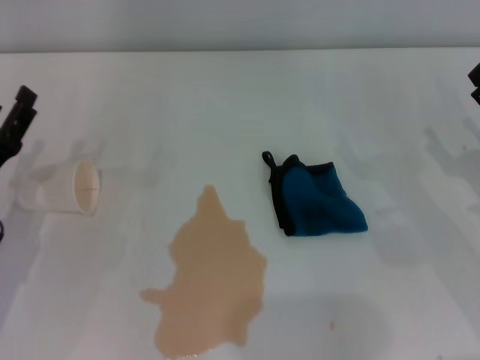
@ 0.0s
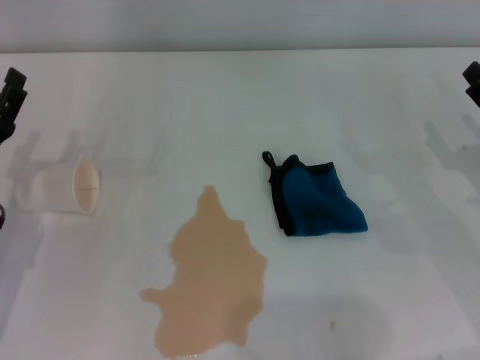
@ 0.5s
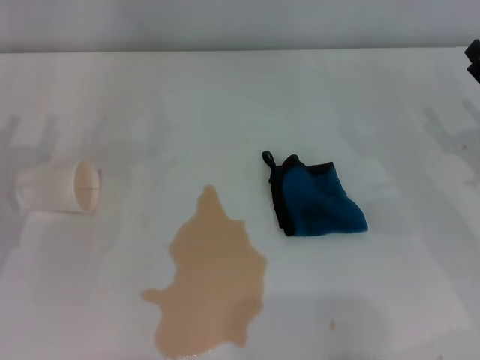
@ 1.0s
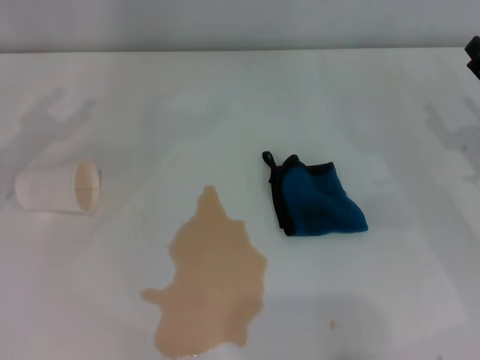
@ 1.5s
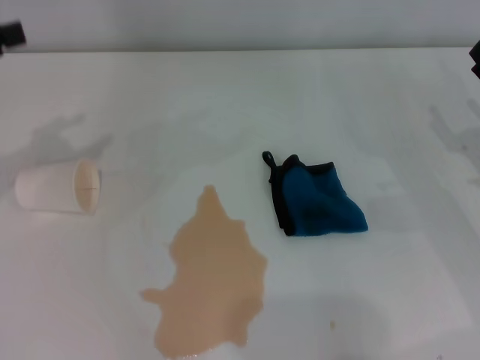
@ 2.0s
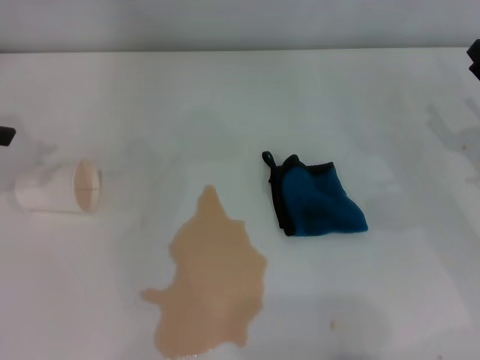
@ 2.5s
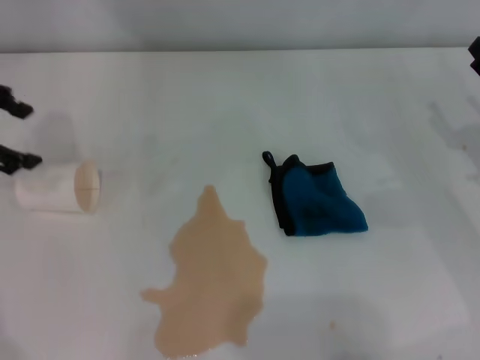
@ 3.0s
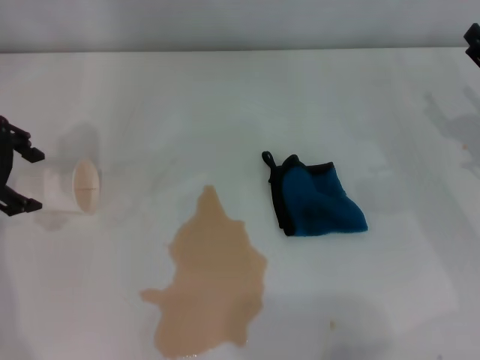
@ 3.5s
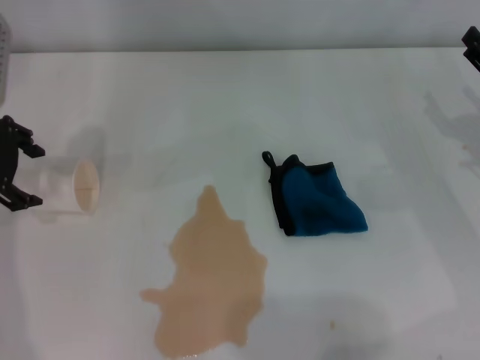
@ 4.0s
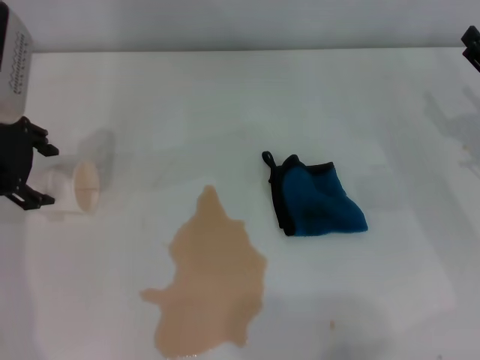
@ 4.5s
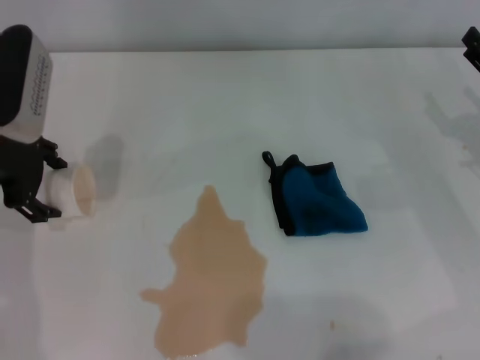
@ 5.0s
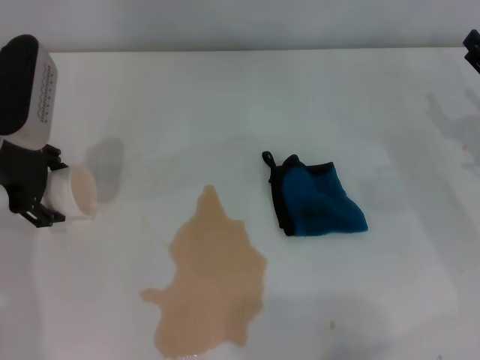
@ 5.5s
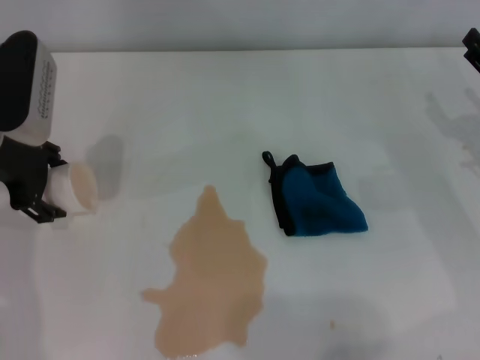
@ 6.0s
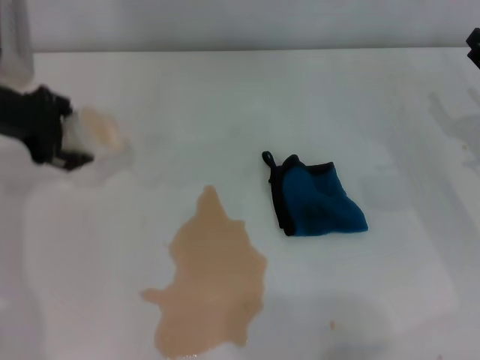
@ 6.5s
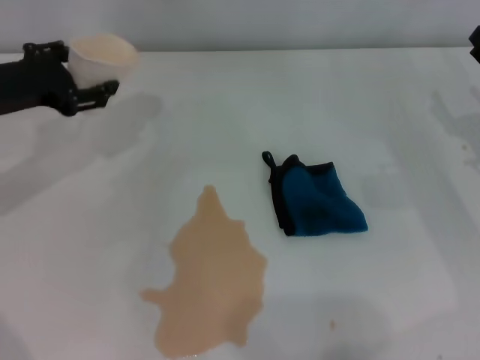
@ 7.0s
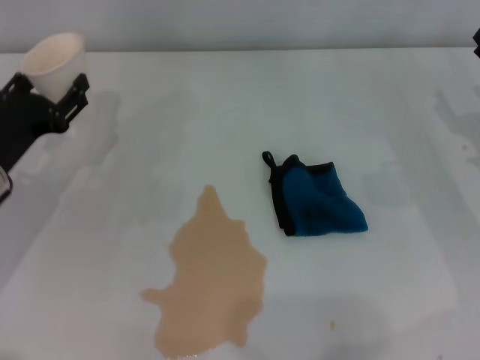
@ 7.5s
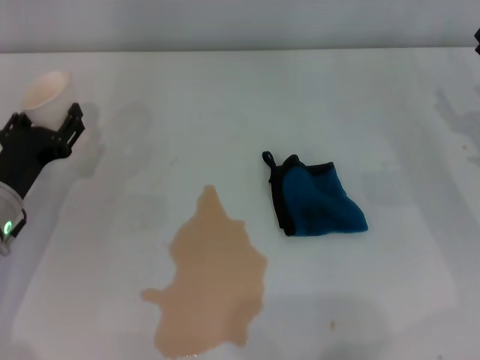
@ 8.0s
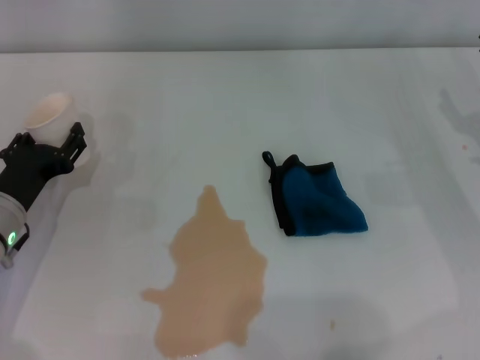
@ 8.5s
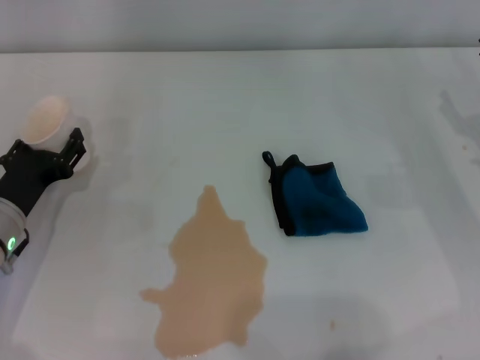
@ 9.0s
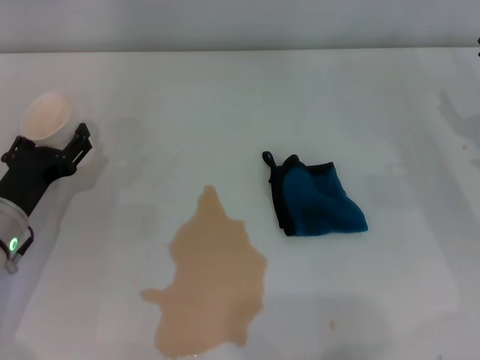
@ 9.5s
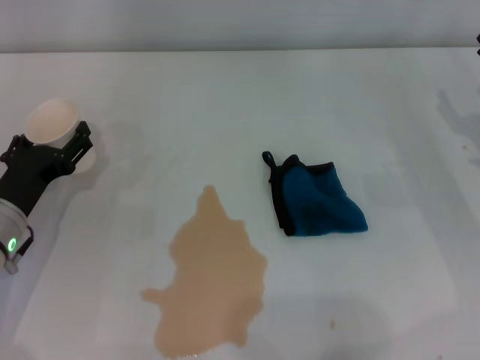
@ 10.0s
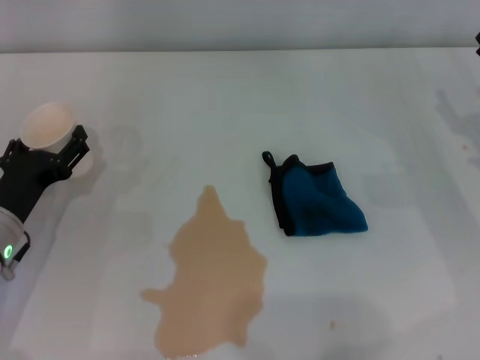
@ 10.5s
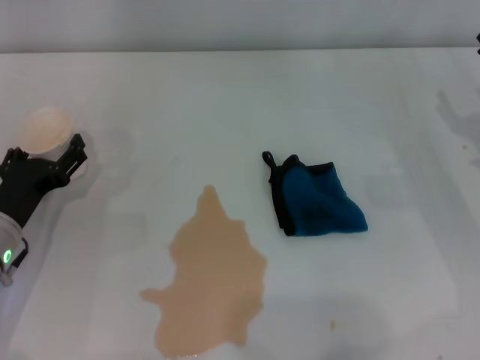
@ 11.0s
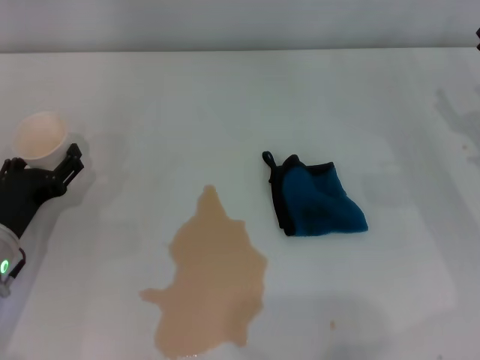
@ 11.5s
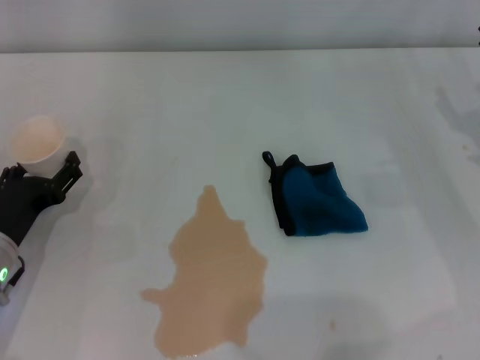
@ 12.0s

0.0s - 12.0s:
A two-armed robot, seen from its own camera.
Step, 0.0s - 6.0s: Grasp the paper cup with the left gripper.
0.0s - 2.0s: The left gripper is displaced upward and to the left by roughly 20 cm.
2.0s - 4.0s: The left gripper is displaced to the right and forward by some 10 cm.
4.0s - 6.0s: The grippers stay close to where they were, moving slightly.
6.0s - 8.0s: The left gripper goes about 15 cm downward and backward, and closes up.
8.0s - 10.0s: The left gripper opens.
10.0s - 12.0s: The grippers stay close to where they were, moving slightly.

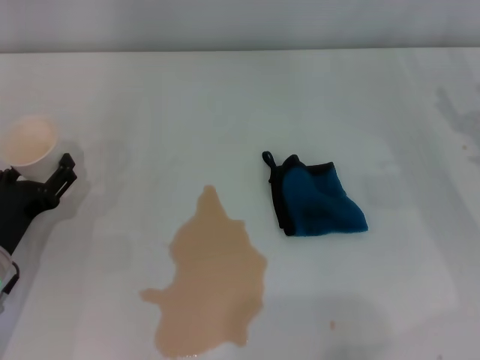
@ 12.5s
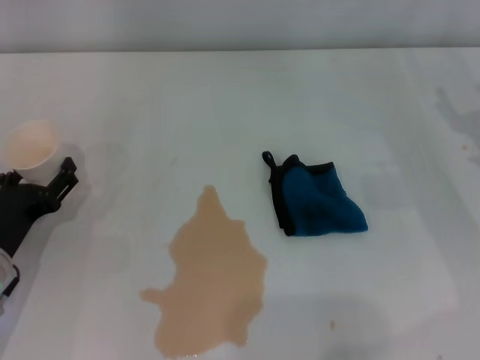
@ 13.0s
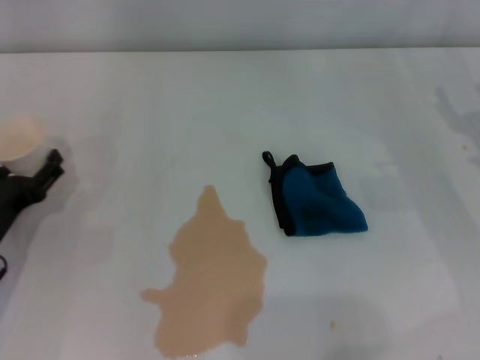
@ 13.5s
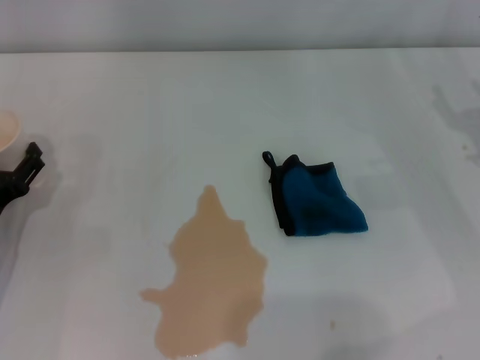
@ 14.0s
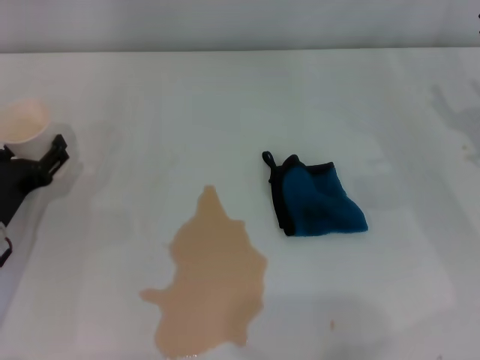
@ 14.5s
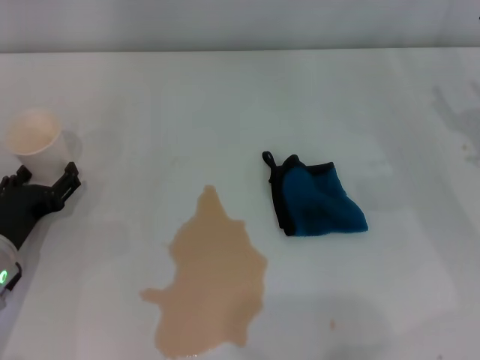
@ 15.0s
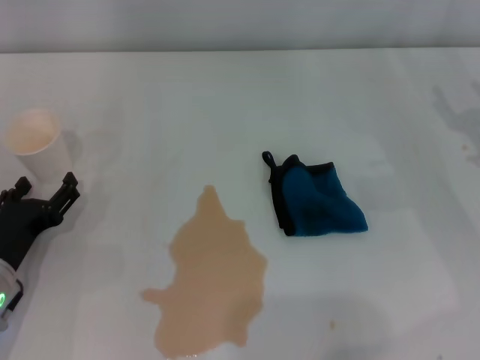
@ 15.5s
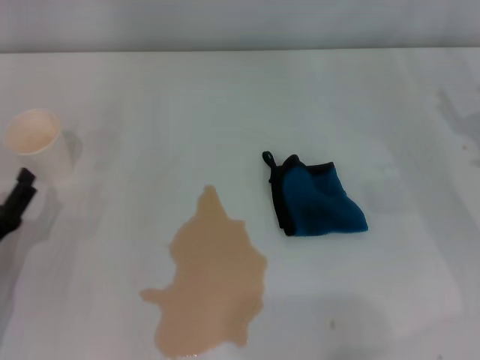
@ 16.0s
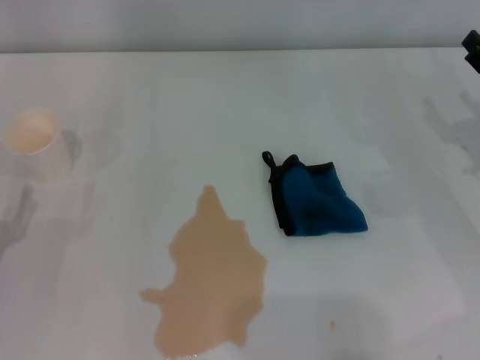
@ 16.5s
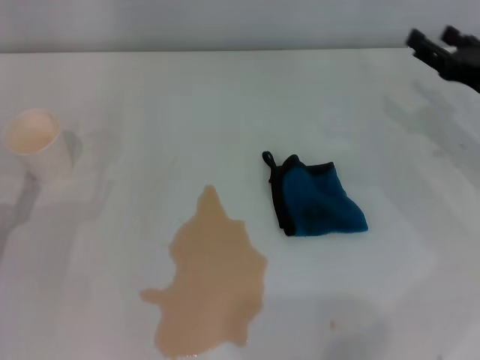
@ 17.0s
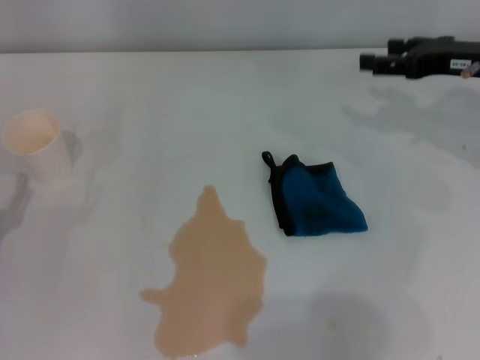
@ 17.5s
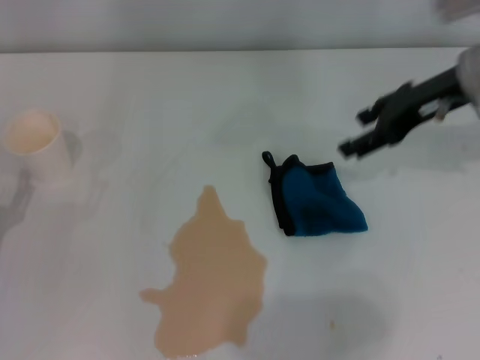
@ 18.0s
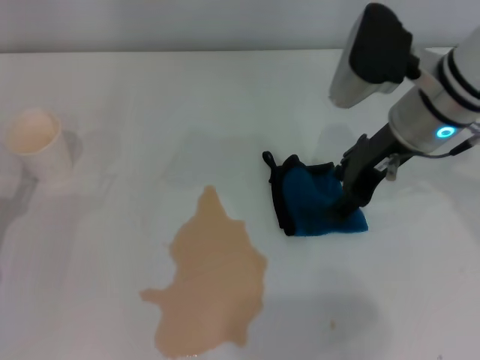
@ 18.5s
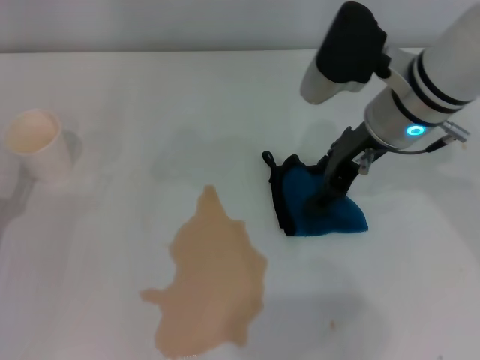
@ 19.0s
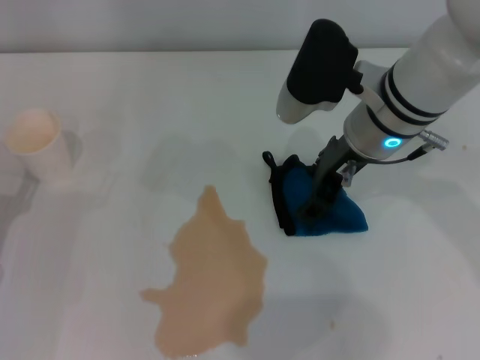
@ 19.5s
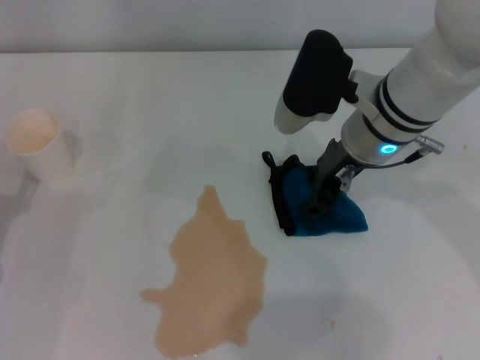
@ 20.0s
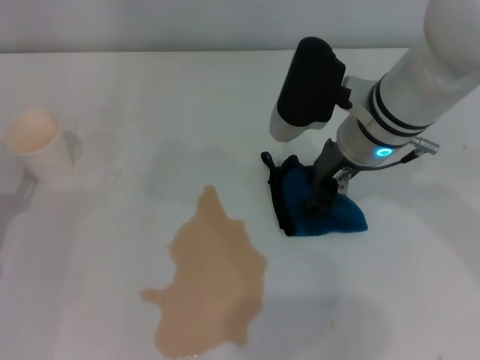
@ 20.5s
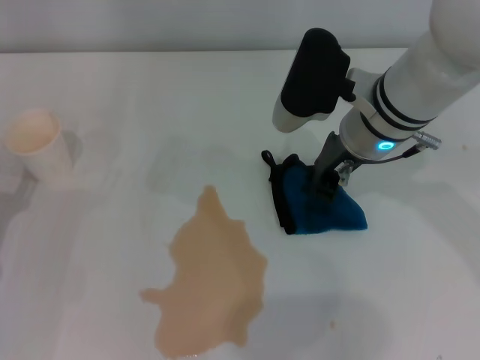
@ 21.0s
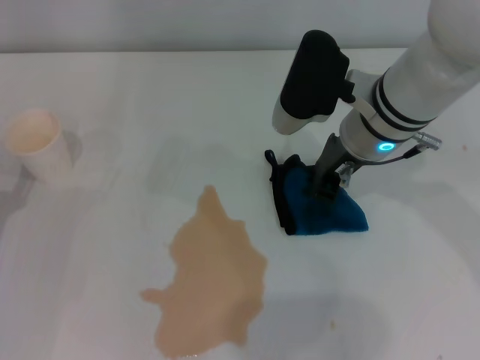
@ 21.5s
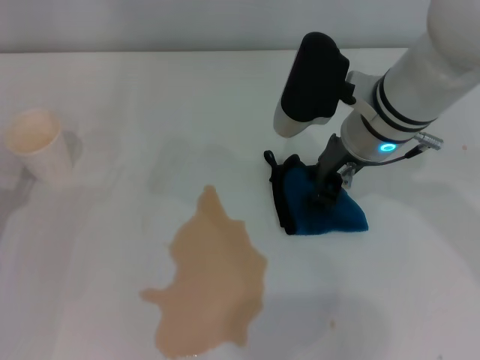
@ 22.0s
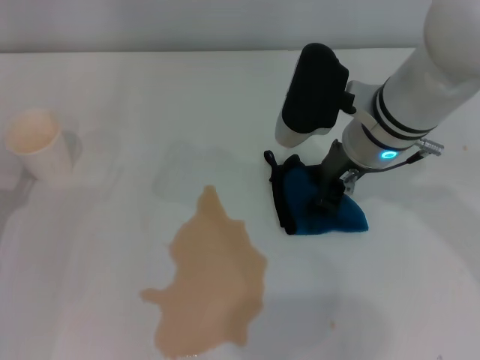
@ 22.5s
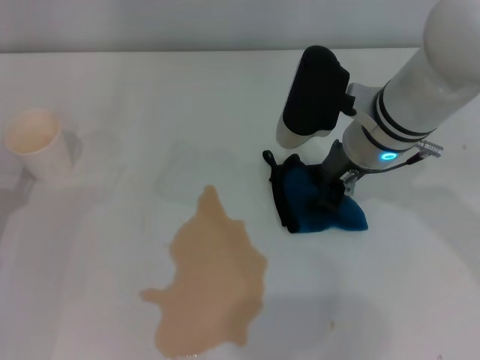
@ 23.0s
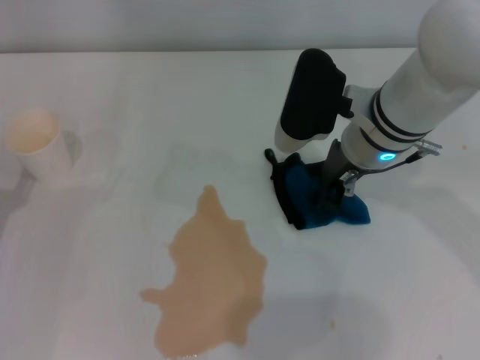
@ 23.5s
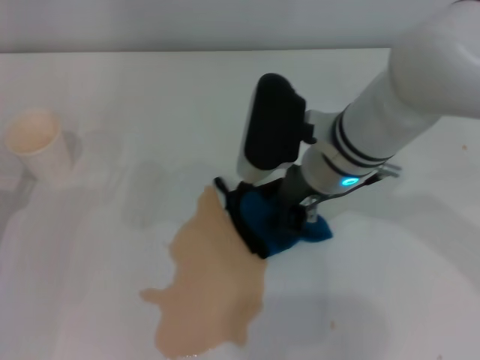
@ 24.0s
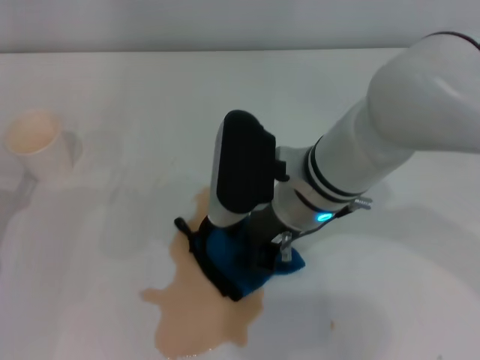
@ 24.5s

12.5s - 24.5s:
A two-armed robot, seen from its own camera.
Step, 12.5s - 14.5s: Stand the paper cup upright with the left gripper.
Step, 15.0s - 23.0s: Grasp the rag with the right gripper.
12.5s - 14.5s: The grippers stay close to where they were, moving slightly.
14.5s - 16.5s: The left gripper heads backward, covering about 10 cm.
16.5s - 18.5s: The right gripper heads to the left and upward, covering some 20 cm.
18.5s - 20.5s: The right gripper moves roughly 5 cm, and closes.
20.5s - 22.5s: The right gripper closes and opens again.
22.5s - 24.5s: The right gripper moves to the left and backward, roughly 10 cm, and closes up.

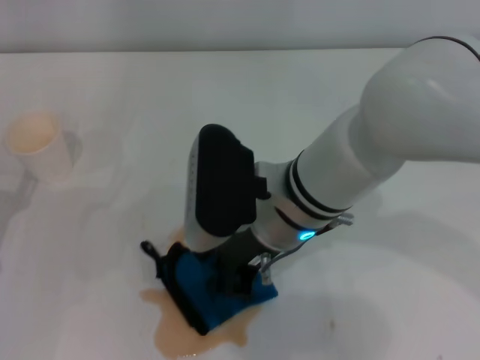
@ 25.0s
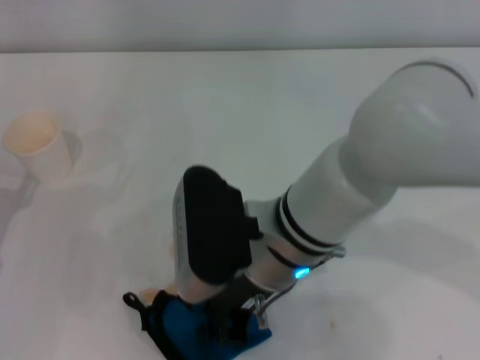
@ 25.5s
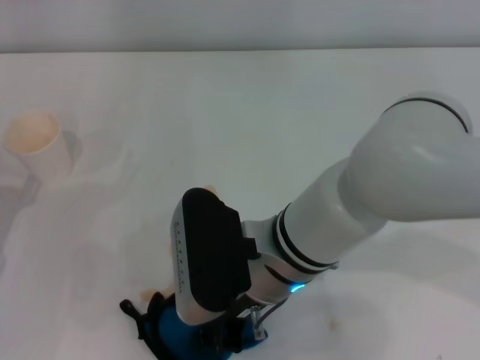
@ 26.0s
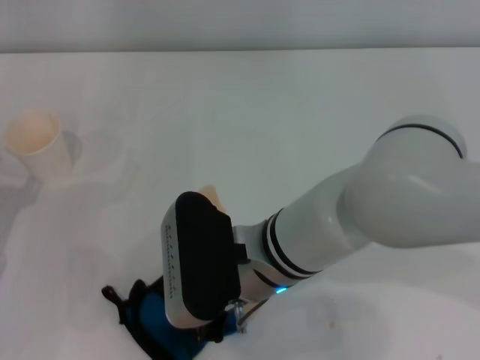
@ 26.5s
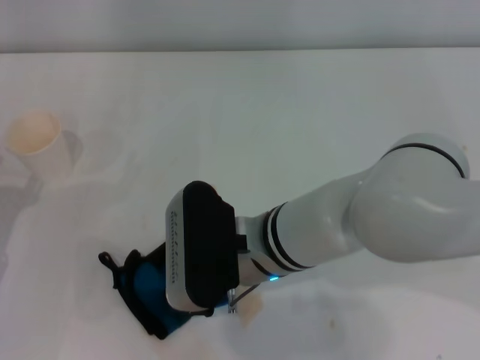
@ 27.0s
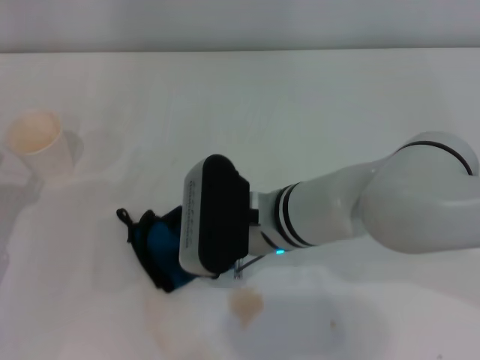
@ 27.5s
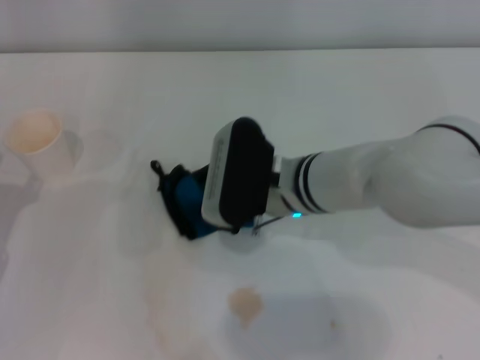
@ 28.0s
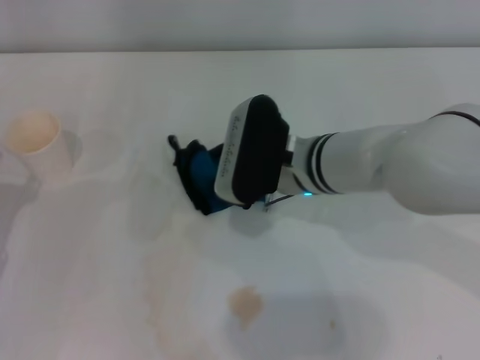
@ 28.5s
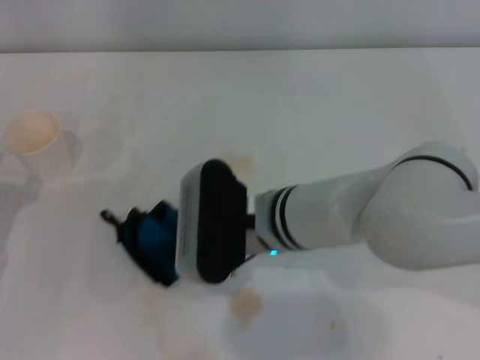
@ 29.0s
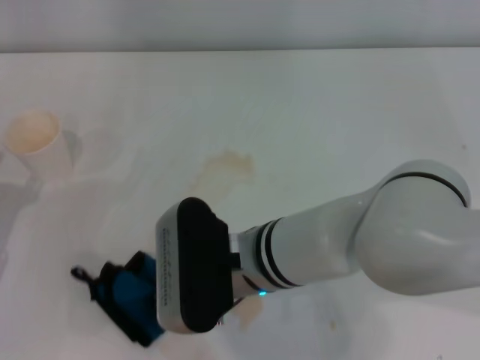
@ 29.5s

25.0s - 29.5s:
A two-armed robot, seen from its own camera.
25.0s - 27.0s: The right gripper changes place by some 5 cm.
27.0s - 29.5s: The right gripper travels forward and back again, about 10 cm each way.
